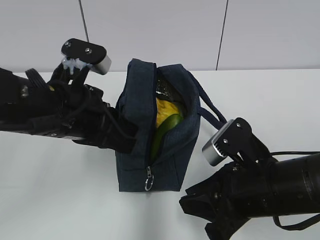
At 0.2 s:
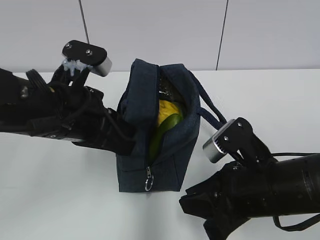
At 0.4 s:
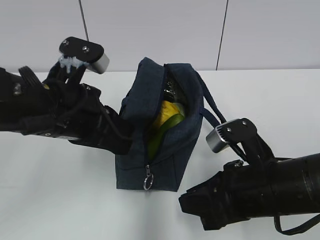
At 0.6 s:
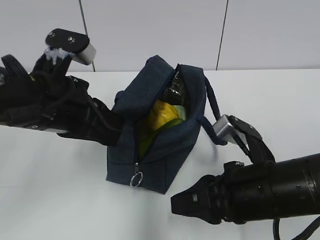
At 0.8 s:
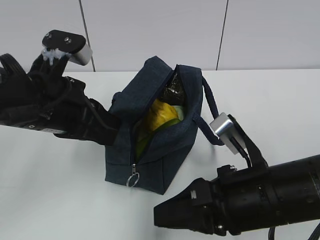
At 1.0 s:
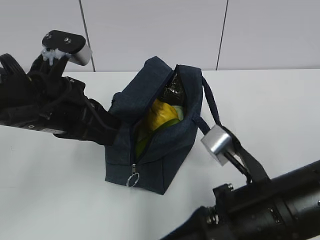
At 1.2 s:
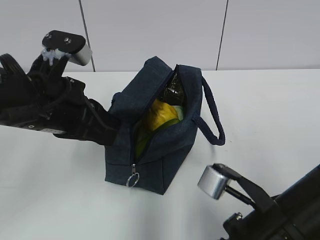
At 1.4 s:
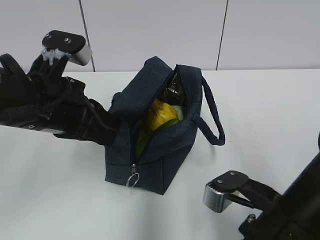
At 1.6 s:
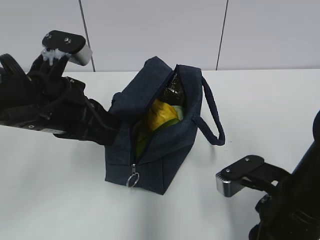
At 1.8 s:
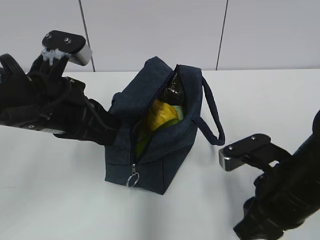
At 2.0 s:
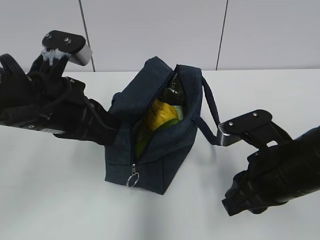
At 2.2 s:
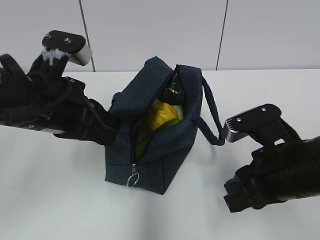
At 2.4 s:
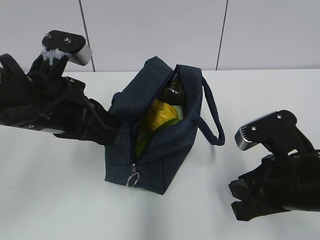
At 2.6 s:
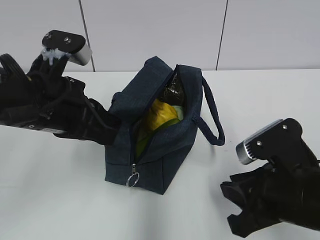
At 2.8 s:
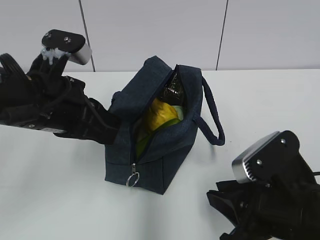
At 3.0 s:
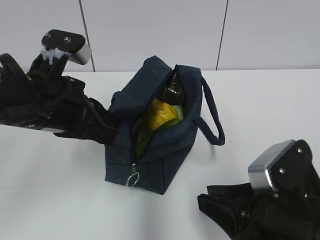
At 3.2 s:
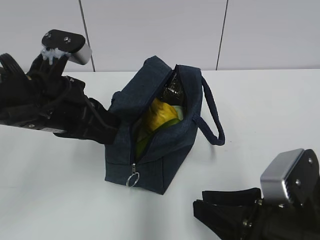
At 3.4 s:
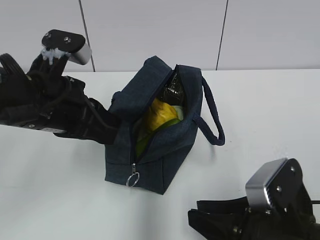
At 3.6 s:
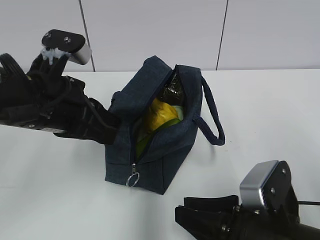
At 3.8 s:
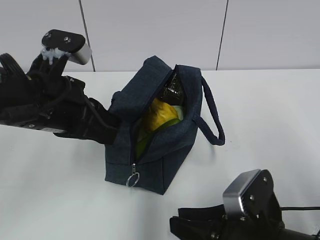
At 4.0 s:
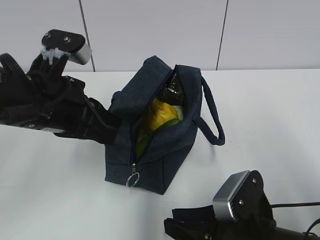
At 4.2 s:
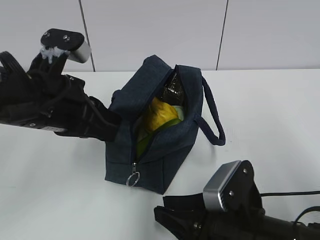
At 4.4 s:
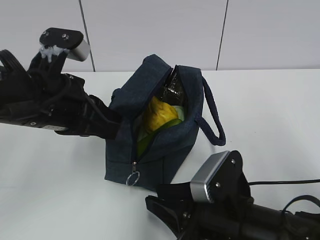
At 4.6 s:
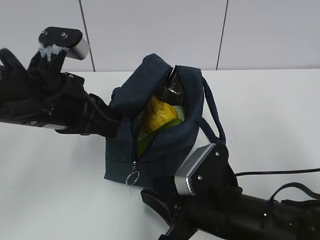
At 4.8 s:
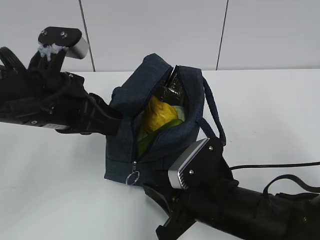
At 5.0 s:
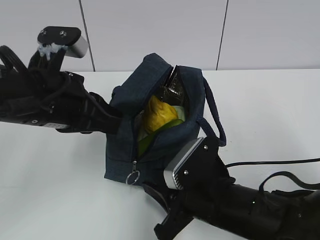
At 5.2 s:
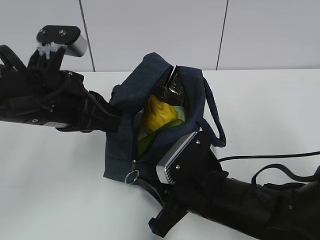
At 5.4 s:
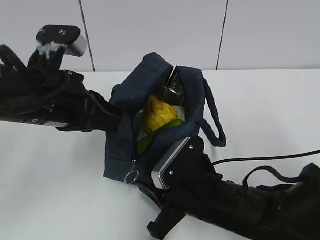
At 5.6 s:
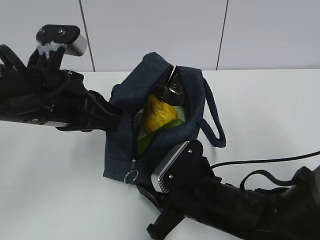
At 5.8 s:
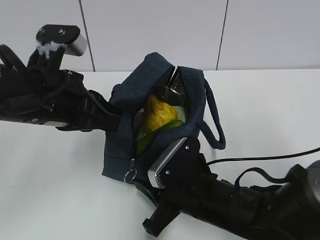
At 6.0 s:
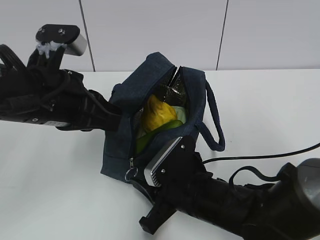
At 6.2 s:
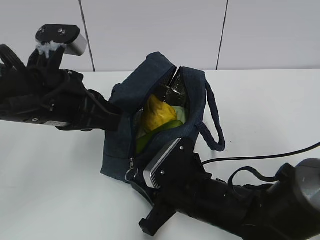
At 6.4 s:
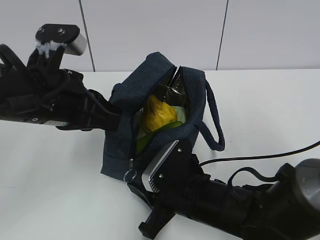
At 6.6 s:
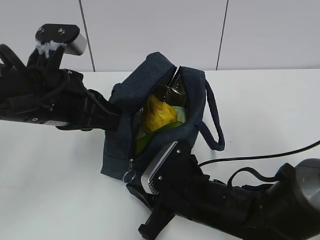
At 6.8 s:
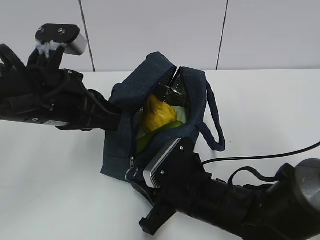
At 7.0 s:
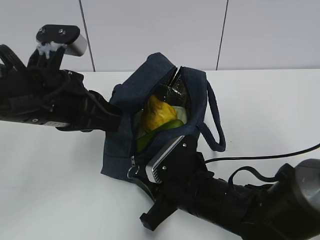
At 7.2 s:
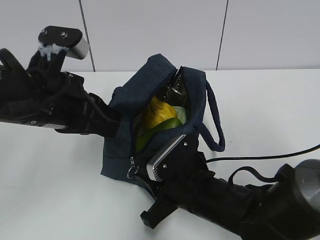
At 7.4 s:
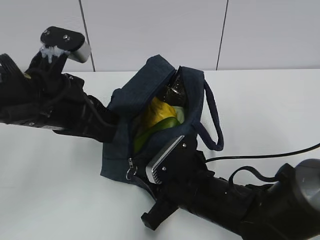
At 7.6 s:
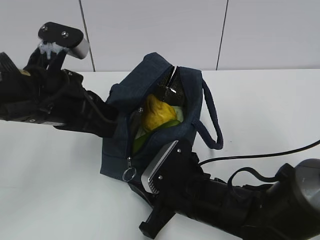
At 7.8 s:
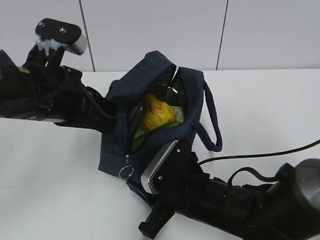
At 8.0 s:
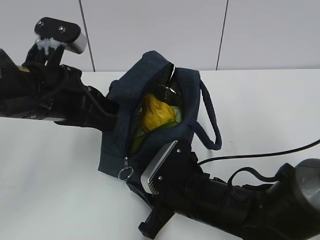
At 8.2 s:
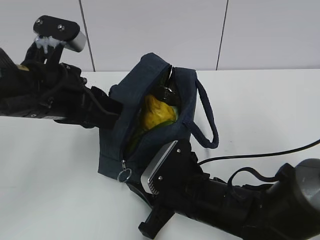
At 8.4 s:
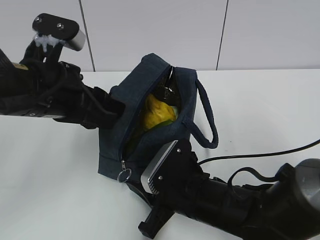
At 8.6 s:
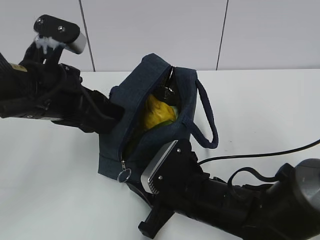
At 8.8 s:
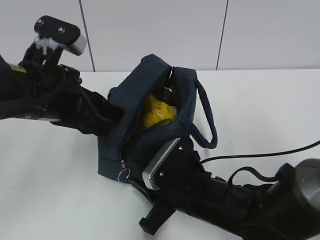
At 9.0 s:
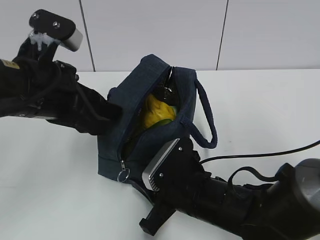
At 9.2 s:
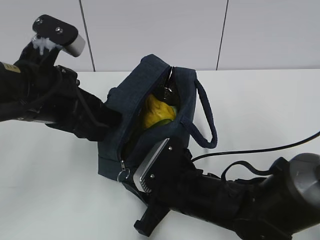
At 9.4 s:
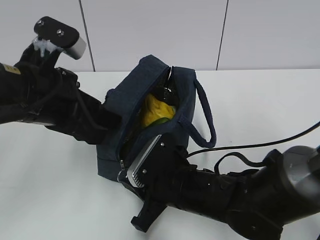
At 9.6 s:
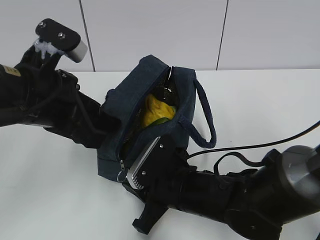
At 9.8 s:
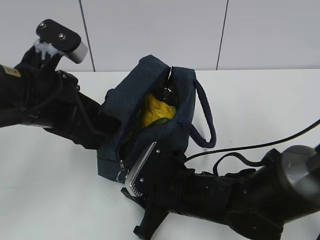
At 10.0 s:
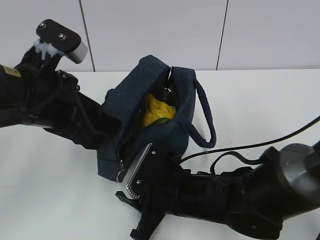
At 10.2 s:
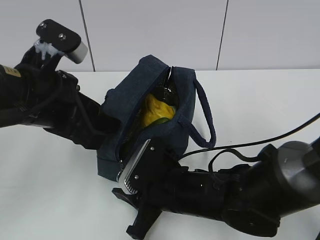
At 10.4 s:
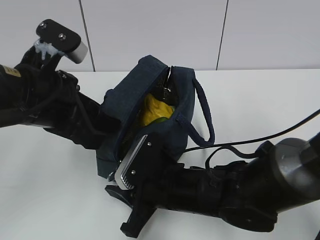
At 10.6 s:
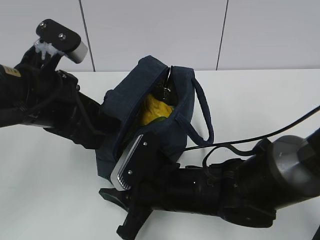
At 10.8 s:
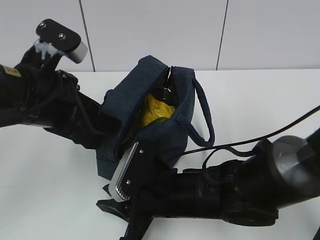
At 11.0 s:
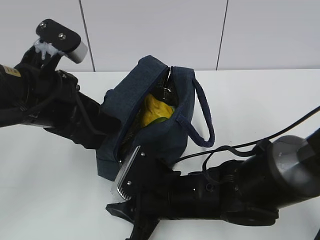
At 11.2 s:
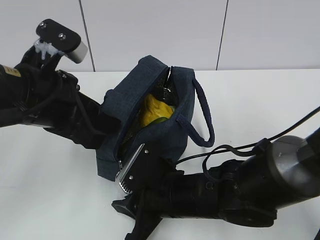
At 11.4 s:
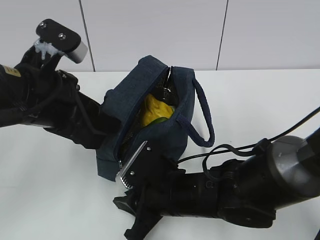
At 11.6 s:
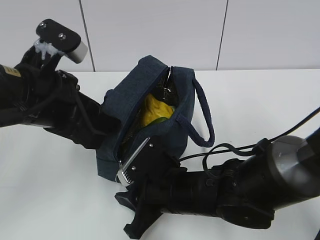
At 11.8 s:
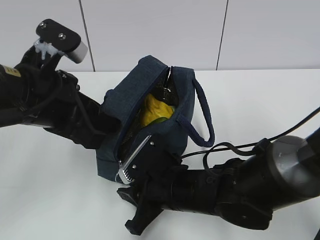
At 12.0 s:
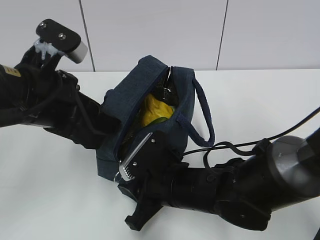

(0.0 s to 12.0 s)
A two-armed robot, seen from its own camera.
3.0 s - 4.4 s: The right gripper heads downward and to the left, covering roughly 5 cm.
4.4 s - 6.0 s: The right gripper moves forward, roughly 5 cm.
6.0 s - 7.6 s: The grippers move only a little.
7.6 s - 9.0 s: The left gripper opens its fingers.
10.4 s - 12.0 s: There are only small adjustments of the grippers.

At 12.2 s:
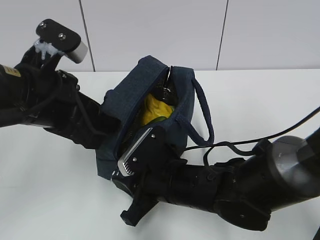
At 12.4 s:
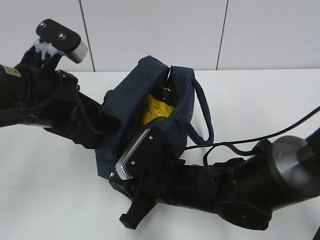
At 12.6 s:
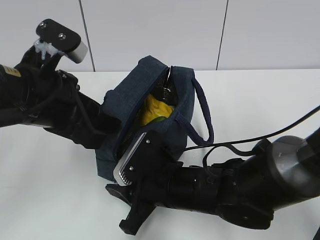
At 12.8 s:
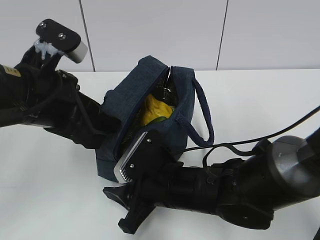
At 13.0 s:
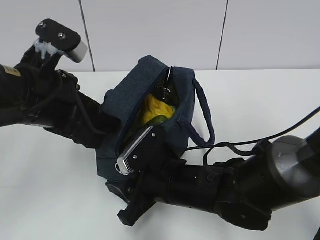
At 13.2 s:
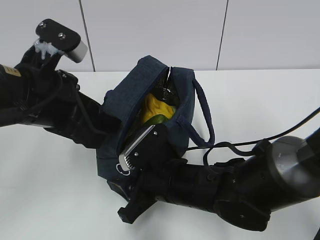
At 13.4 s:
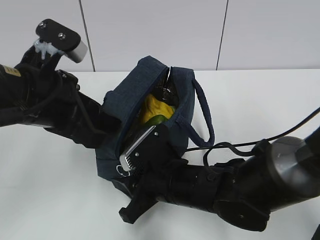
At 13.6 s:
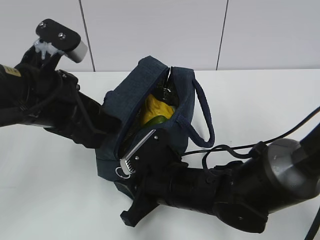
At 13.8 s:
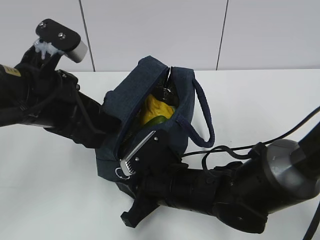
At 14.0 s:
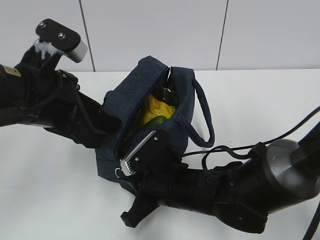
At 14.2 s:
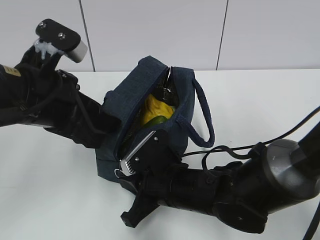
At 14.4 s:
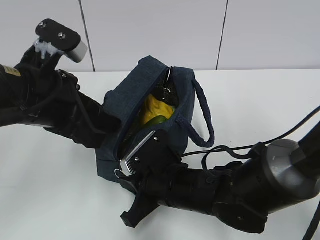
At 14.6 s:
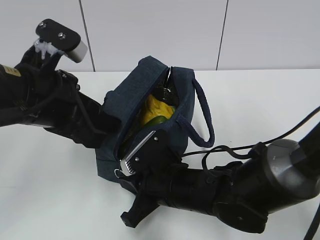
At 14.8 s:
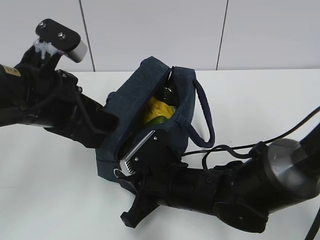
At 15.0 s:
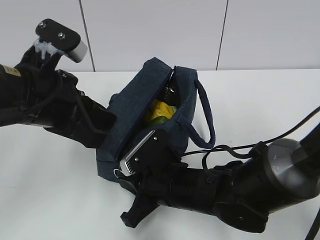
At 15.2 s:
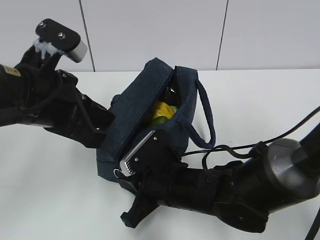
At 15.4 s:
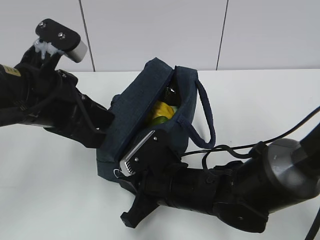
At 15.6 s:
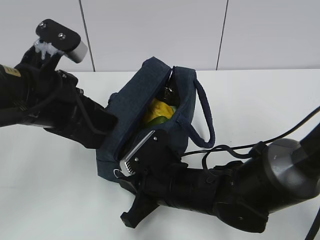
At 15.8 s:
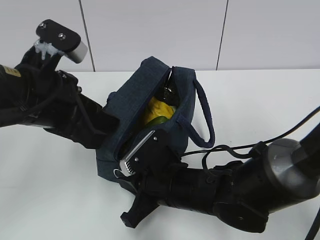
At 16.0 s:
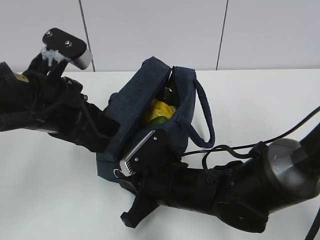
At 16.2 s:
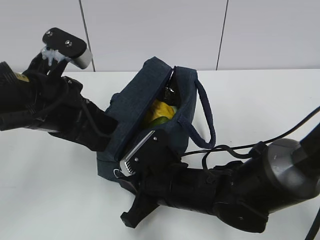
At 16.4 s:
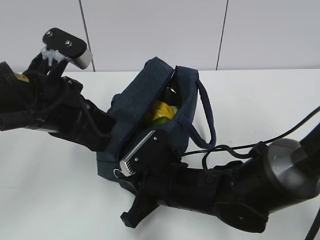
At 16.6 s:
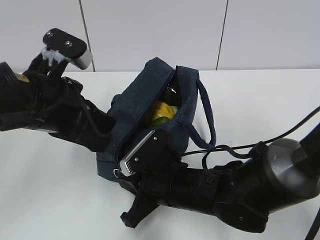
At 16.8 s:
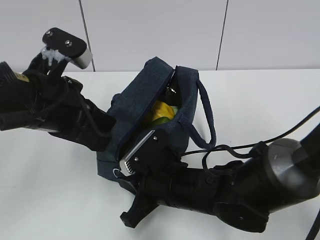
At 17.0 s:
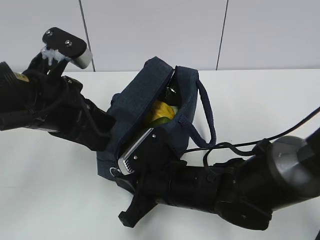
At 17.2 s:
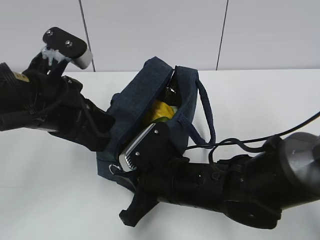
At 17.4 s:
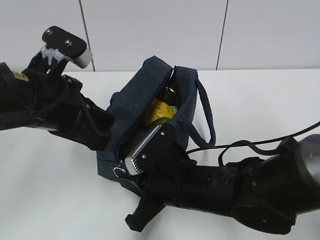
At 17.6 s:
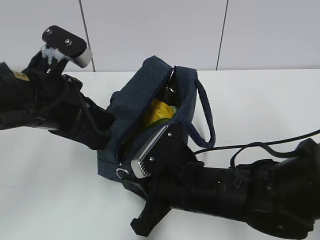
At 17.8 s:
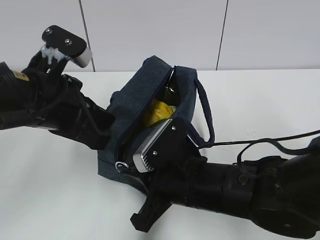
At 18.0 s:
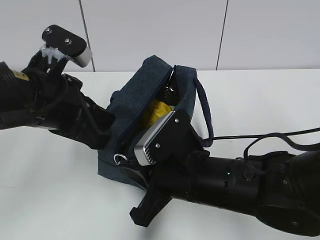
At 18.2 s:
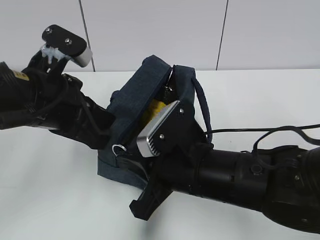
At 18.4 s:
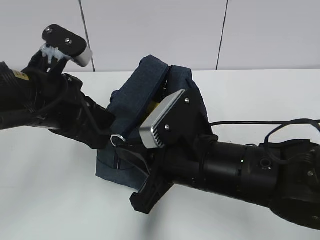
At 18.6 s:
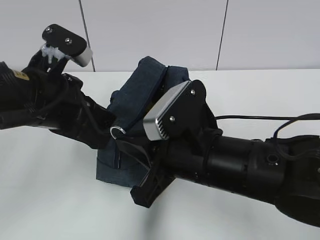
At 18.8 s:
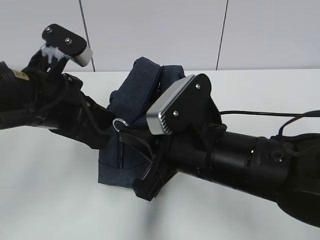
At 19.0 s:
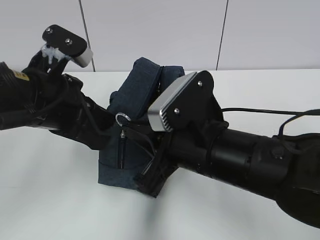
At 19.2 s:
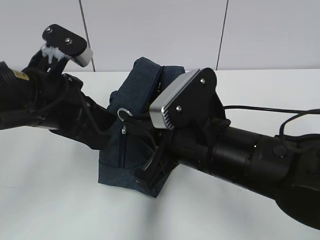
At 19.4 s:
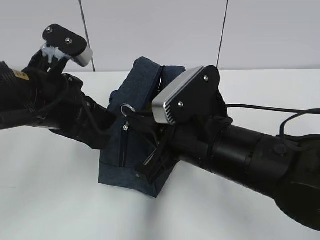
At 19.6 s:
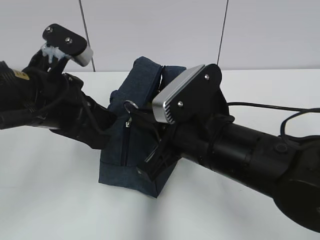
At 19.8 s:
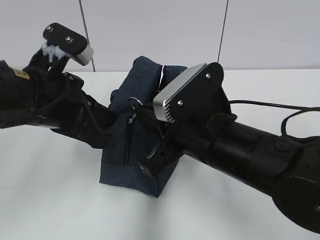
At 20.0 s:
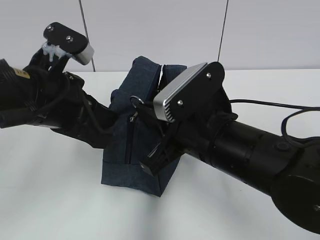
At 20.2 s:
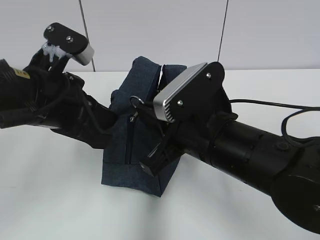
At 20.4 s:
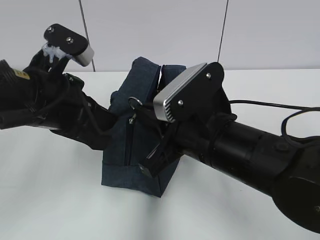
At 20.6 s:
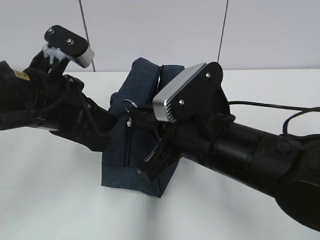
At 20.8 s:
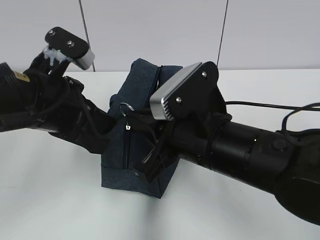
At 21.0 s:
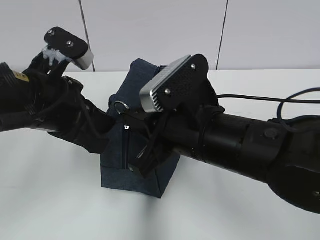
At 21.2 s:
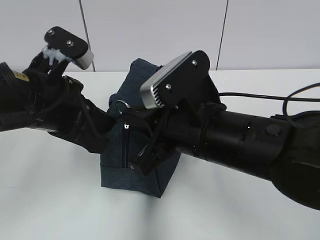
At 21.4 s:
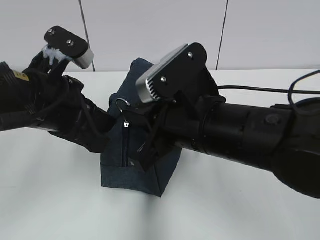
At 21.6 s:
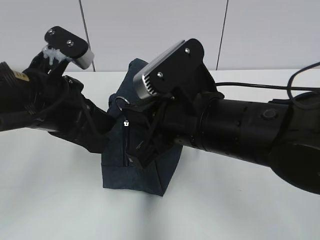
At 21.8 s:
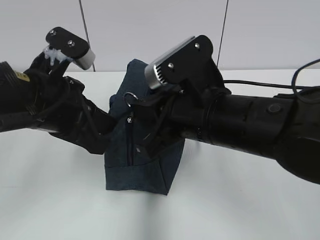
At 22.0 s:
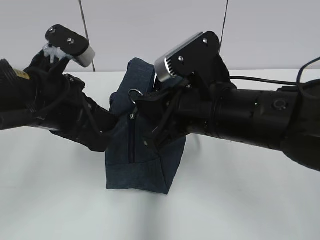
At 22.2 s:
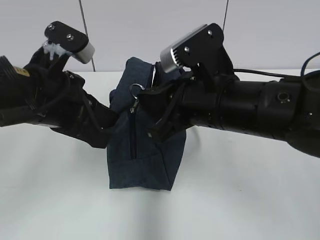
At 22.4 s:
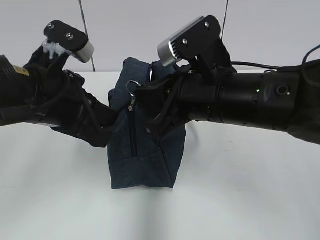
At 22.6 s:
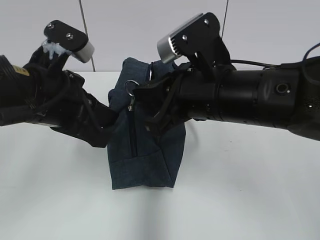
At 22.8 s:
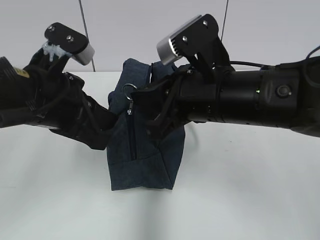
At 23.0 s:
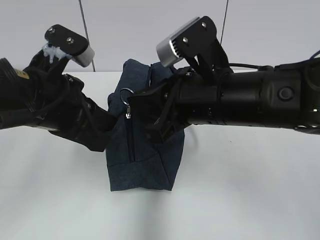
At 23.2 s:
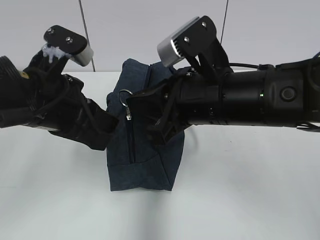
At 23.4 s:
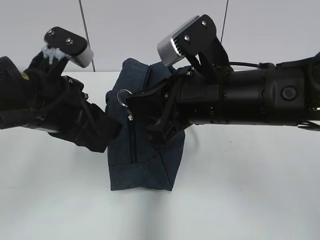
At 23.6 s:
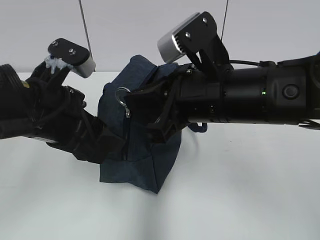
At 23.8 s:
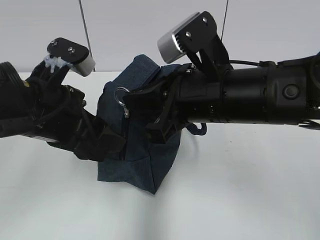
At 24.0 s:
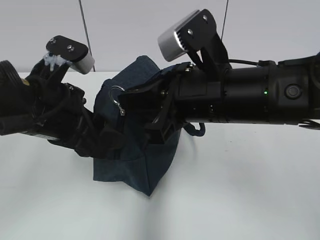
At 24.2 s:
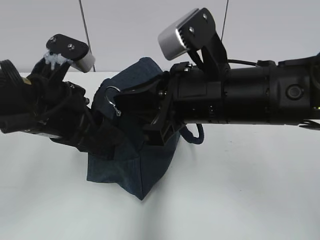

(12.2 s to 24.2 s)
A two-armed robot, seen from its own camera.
12.2 s - 13.8 s: The grippers move only a little.
13.8 s - 15.2 s: The left gripper closes its fingers.
15.2 s - 16.6 s: The left gripper opens, then closes again.
16.6 s - 18.2 s: The right gripper heads upward, covering roughly 10 cm.
18.2 s - 21.2 s: There are only small adjustments of the grippers.
21.2 s - 22.6 s: The right gripper changes place by some 5 cm.
22.6 s - 24.2 s: The left gripper opens up.
